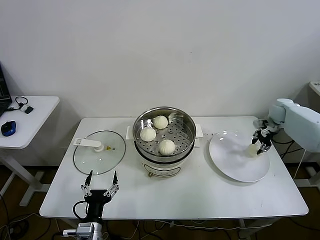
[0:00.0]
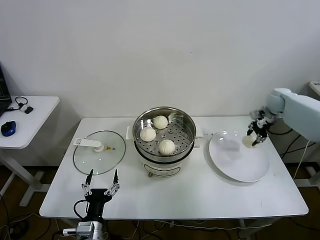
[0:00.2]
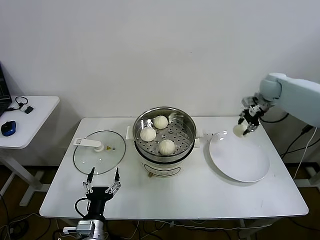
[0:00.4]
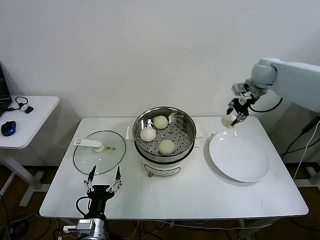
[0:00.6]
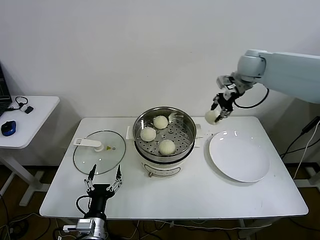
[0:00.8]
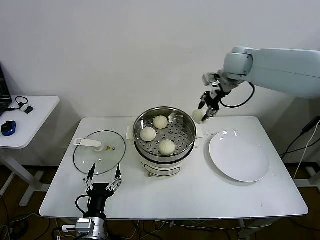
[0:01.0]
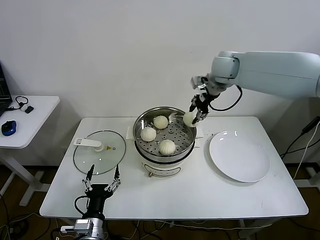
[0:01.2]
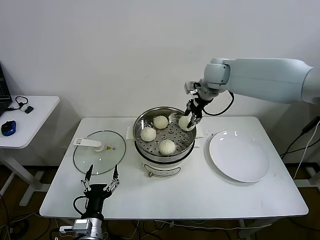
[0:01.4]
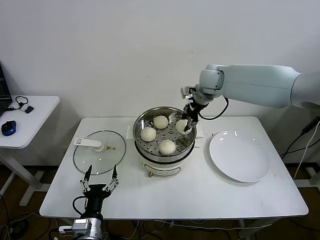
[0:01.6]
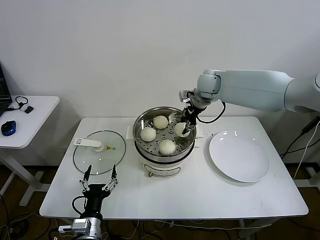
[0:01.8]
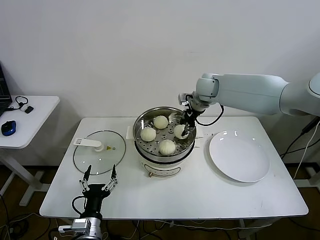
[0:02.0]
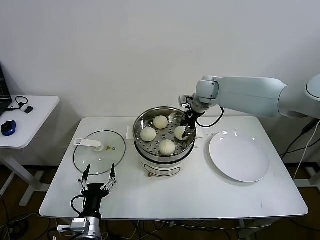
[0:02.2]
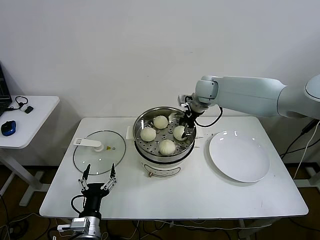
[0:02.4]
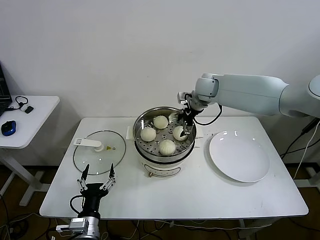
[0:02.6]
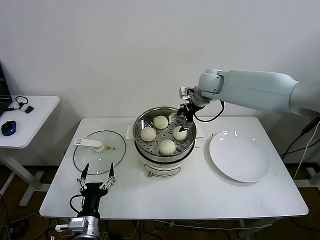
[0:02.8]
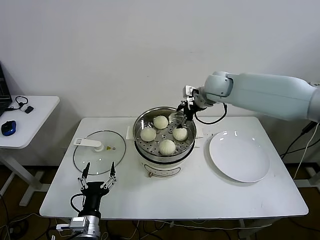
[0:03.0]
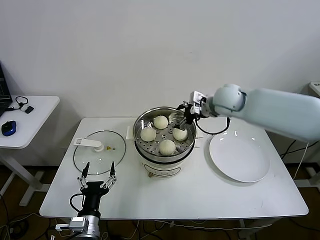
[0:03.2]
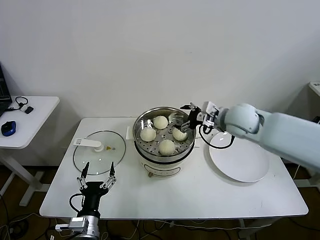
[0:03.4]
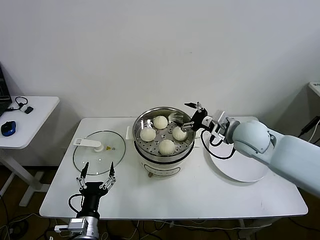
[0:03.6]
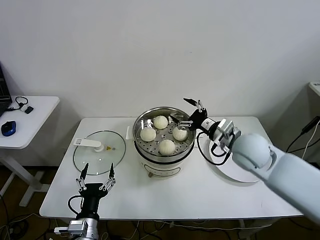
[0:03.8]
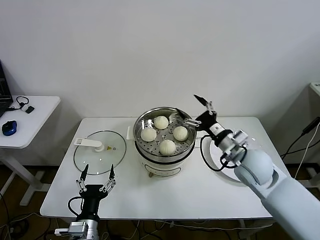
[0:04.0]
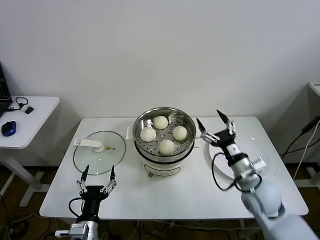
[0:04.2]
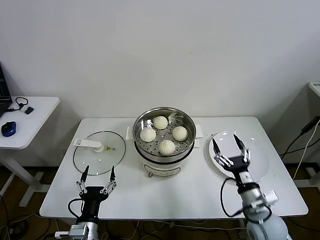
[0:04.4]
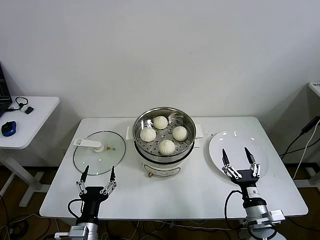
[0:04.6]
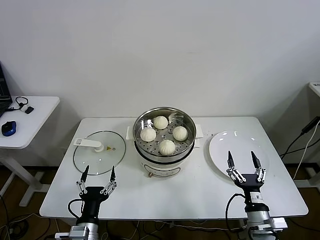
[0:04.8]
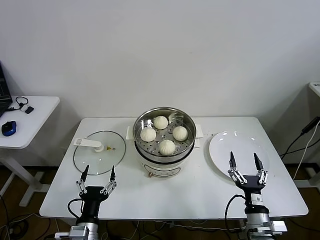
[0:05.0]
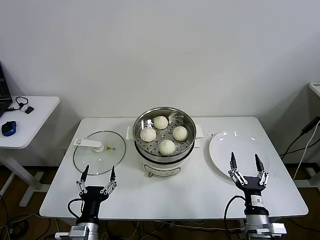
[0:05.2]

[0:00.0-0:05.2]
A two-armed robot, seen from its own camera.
Step, 0:00.0 to 0:03.0: Place the baozi on the steamer with right gripper.
0:00.0 to 0:01.8: The right gripper shifts roughly 35 cm to the left and upward.
0:01.8 to 0:03.4: The right gripper is displaced backward and to the right by roughly 15 cm, and opens its fingers.
0:03.4 to 0:05.2: The right gripper moves backward and downward, some 40 cm.

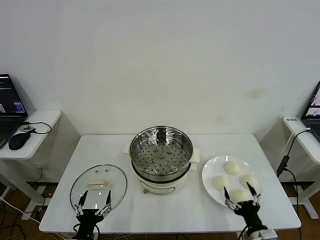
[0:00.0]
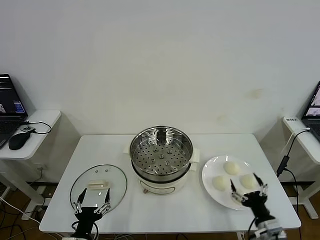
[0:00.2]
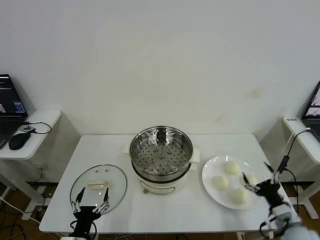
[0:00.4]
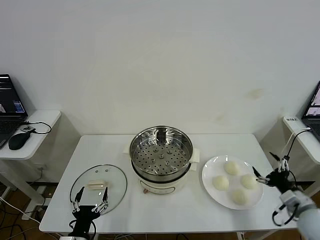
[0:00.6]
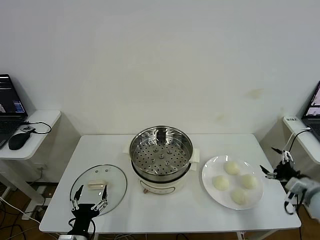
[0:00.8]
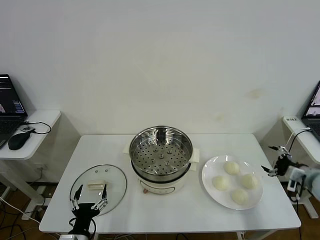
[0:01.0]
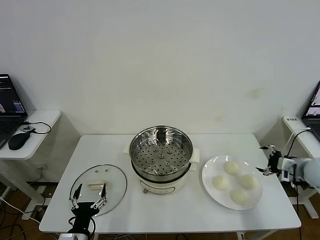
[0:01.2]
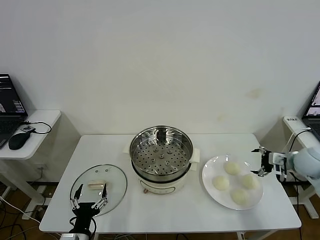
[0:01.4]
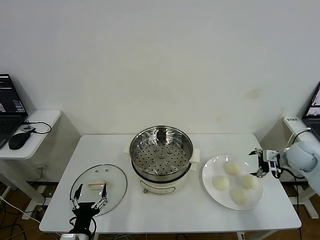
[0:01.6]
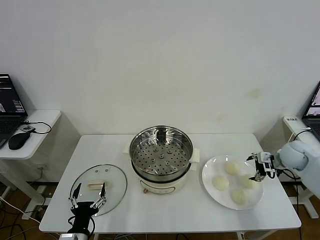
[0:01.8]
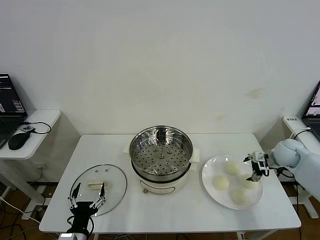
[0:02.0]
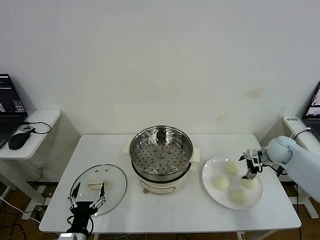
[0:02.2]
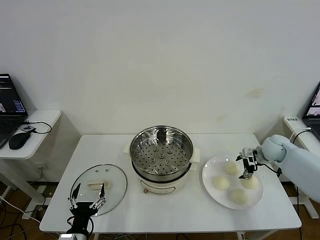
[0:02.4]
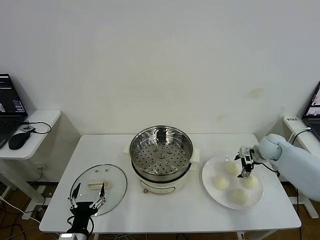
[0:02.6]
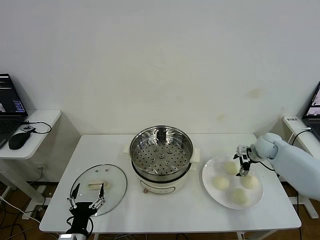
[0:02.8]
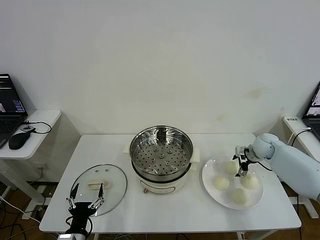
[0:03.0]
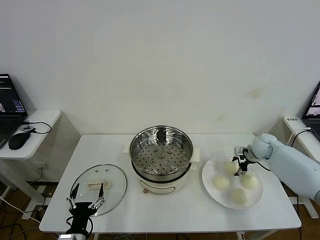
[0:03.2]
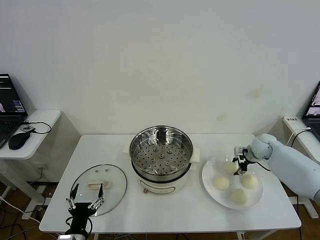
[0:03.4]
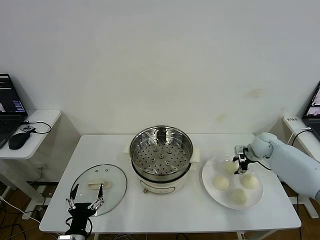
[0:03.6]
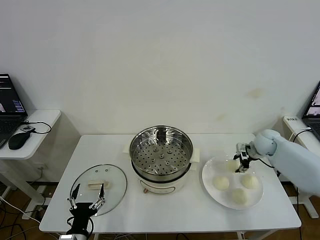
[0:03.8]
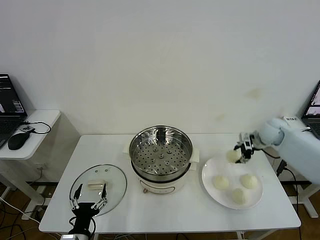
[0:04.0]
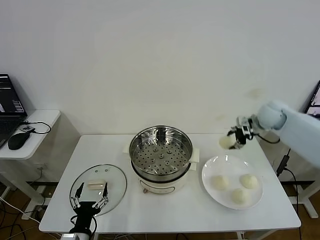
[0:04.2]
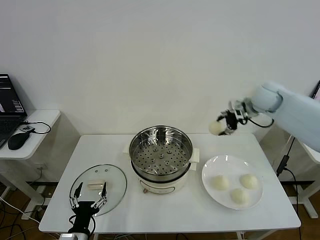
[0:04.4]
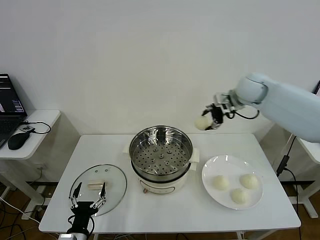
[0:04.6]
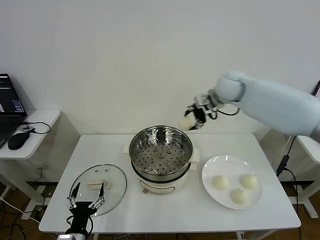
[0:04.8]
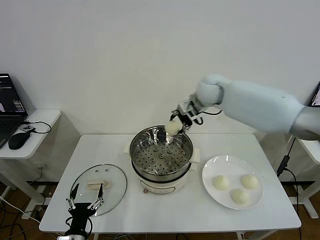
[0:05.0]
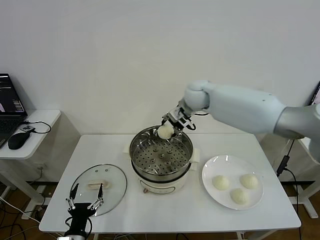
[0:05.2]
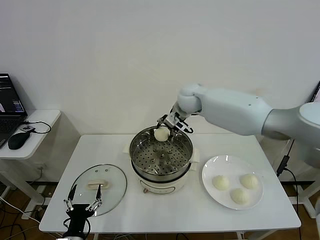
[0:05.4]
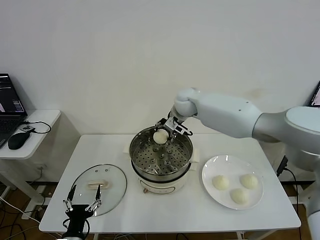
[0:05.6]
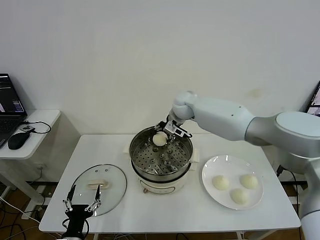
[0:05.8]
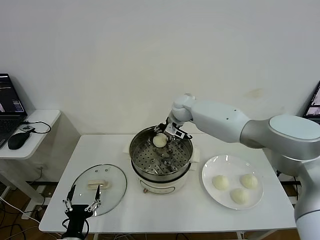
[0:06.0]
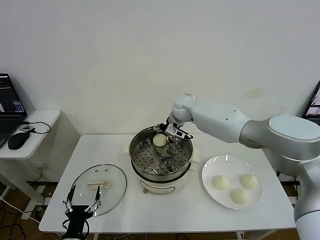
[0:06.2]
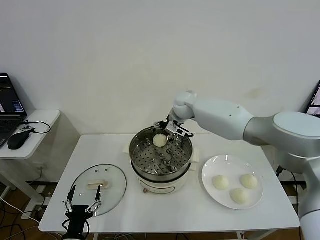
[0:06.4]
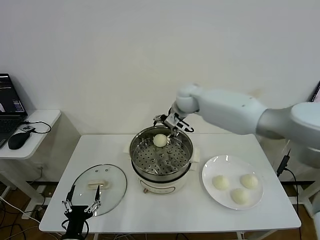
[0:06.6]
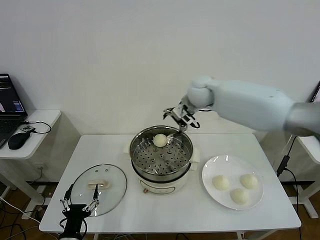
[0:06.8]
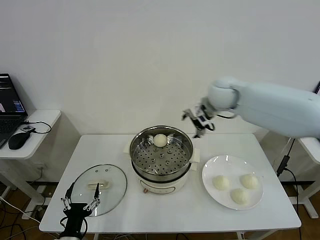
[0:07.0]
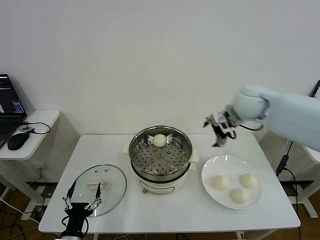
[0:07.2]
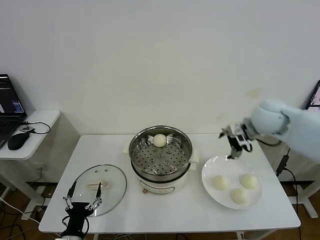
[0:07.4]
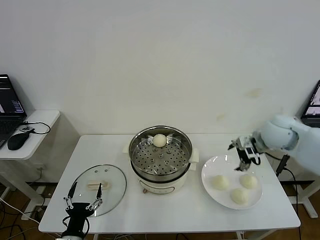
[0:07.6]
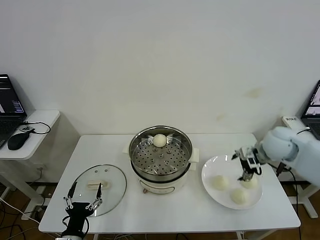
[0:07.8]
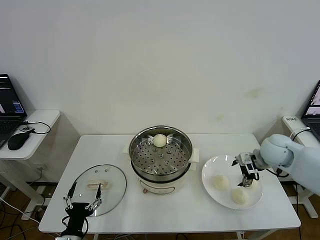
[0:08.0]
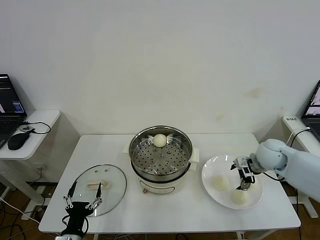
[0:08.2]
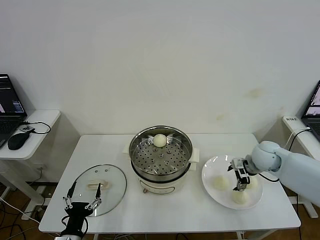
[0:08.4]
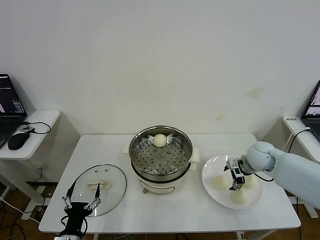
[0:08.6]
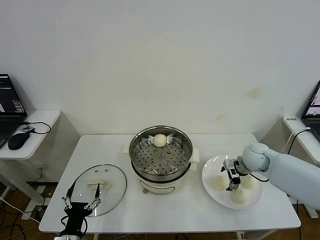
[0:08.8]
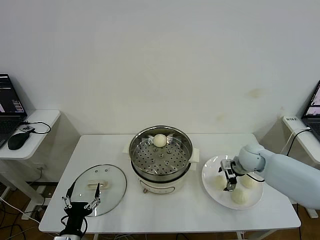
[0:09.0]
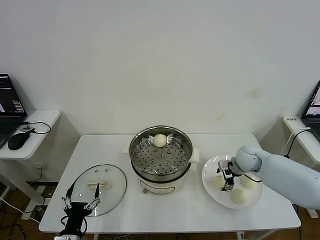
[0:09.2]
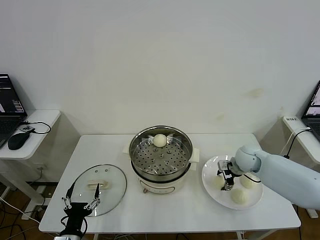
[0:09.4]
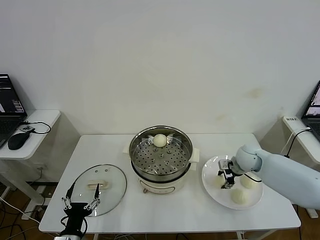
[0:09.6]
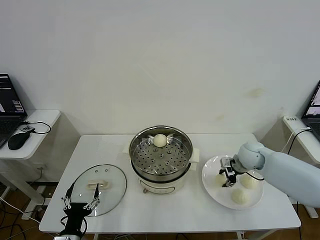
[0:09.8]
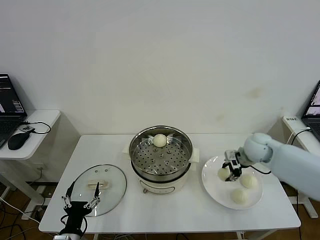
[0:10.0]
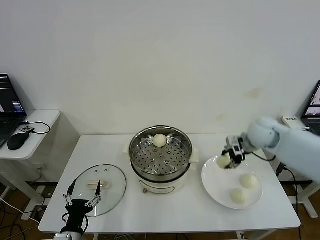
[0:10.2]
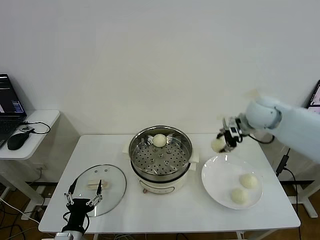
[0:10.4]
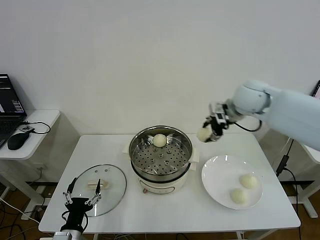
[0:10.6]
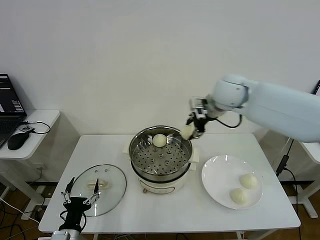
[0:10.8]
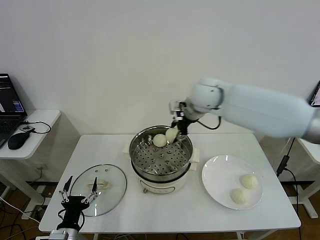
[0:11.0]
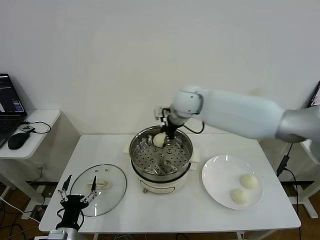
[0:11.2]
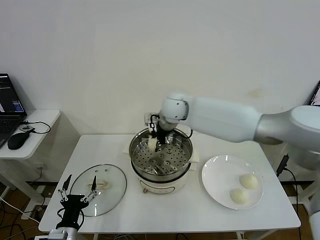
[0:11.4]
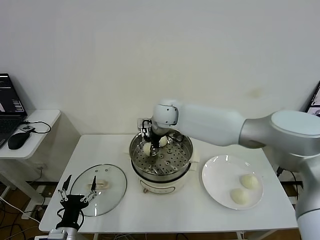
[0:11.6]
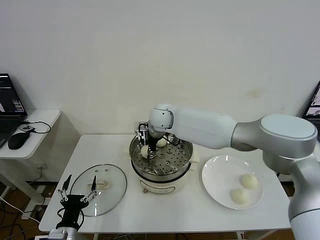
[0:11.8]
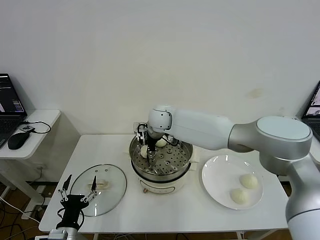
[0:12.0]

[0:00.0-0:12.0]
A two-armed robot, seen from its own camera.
Step, 0:00.0 to 0:03.2: Grasp the baozi in the plate with right gripper.
Step, 0:03.6 to 0:06.2: Place the baozi on the steamer with right gripper.
Step, 0:06.4 to 0:09.6: Grasp the baozi in the plate with right gripper.
0:01.6 to 0:03.0: The right gripper heads forward and to the left, covering some 10 cm.
0:03.0 to 0:04.4: The right gripper moves upward and to the left, roughly 25 cm, and closes up.
0:04.4 to 0:06.0: The right gripper travels to the left and downward by roughly 25 cm.
0:06.0 to 0:07.6: The right gripper goes some 30 cm to the right and backward, and opens.
0:07.6 to 0:09.0: The right gripper travels downward by roughly 15 cm.
0:09.0 to 0:10.4: The right gripper heads upward, covering roughly 20 cm, and closes its fingers.
0:10.4 to 0:12.0: The right gripper shifts roughly 30 cm to the left.

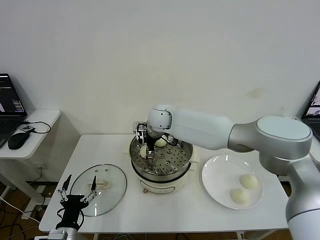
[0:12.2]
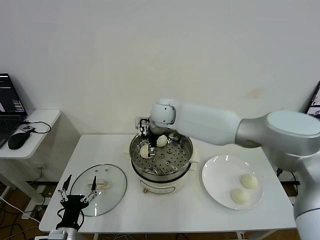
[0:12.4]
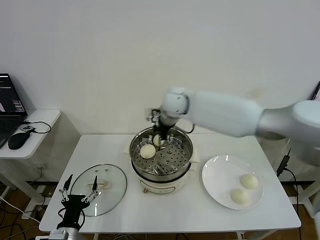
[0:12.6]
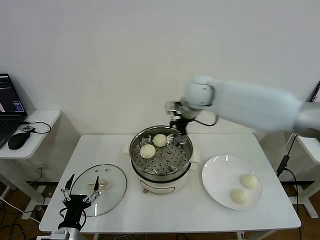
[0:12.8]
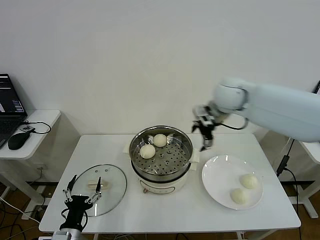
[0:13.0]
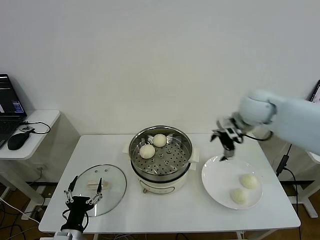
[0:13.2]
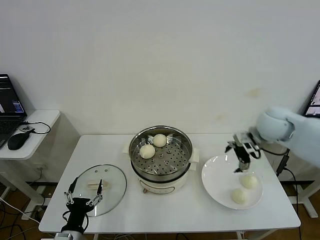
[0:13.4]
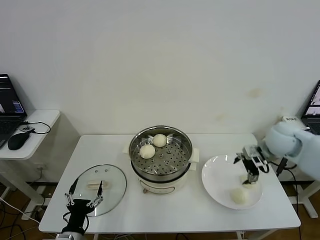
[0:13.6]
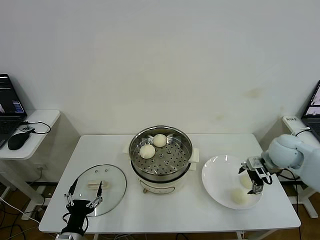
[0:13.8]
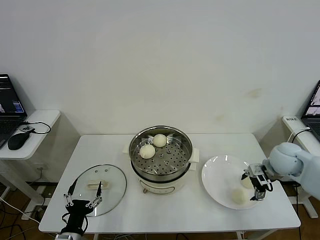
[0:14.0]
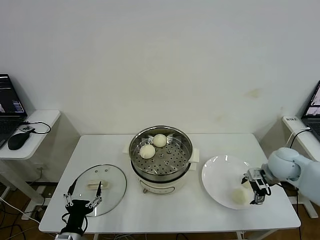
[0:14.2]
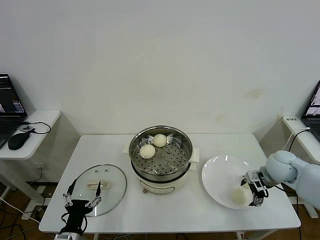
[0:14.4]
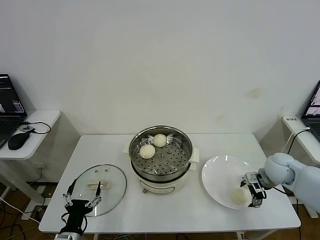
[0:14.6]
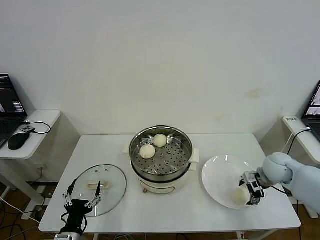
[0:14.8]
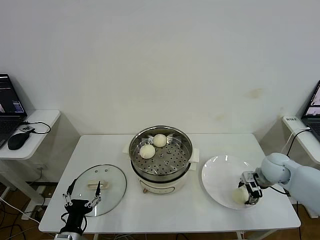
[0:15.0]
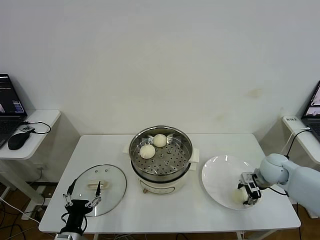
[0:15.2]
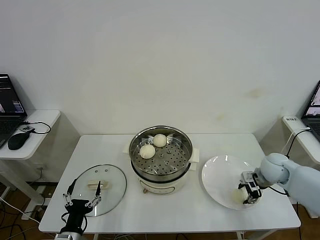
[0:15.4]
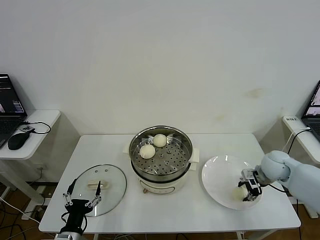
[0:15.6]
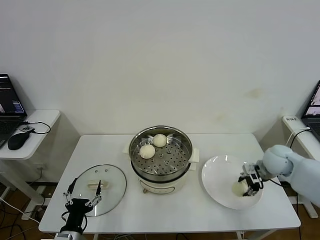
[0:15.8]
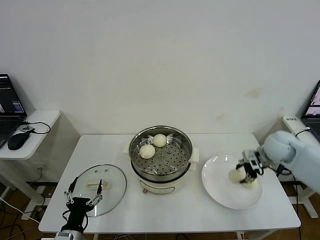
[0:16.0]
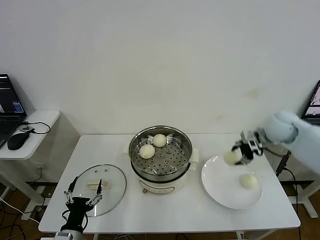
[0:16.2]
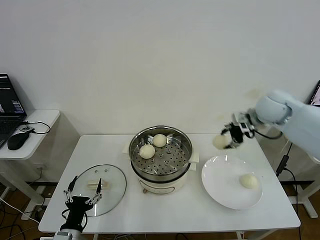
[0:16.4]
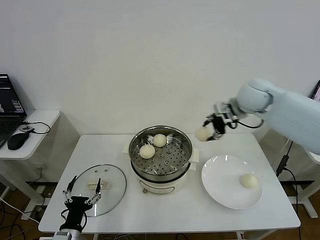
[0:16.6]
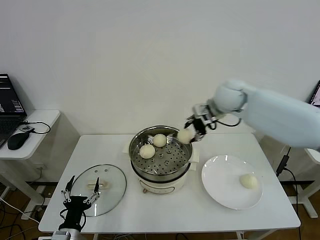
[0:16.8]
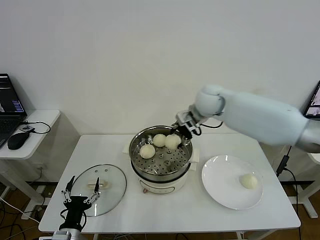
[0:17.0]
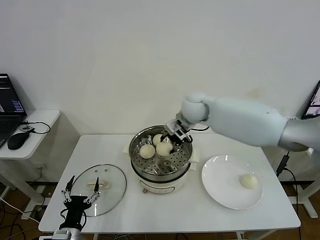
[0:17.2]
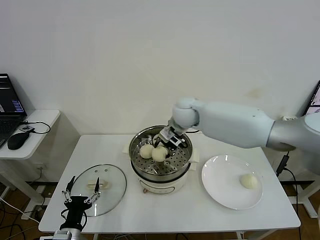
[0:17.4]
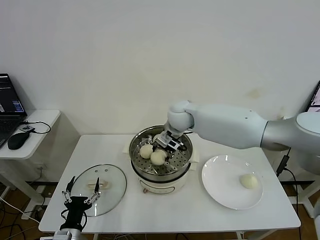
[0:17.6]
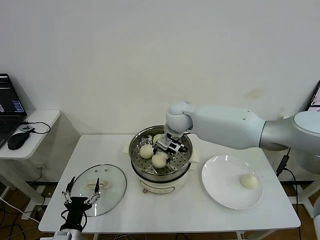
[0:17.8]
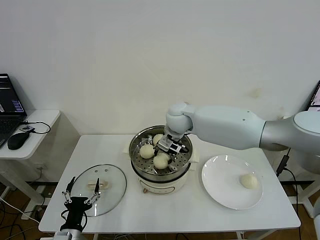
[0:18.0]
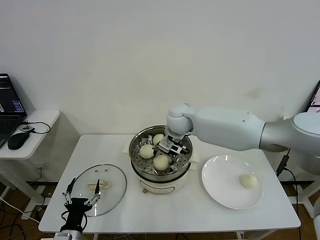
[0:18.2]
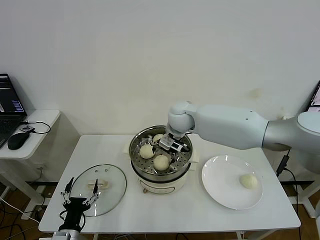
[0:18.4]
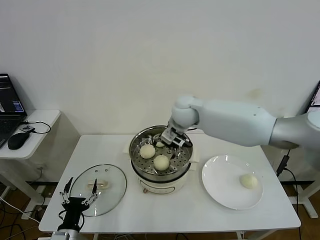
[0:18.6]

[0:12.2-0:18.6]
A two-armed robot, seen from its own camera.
Step, 0:12.6 to 0:15.2: Grasp the baozi in the plate with right gripper.
Step, 0:15.4 to 0:18.4: Place the baozi on the steamer with right gripper.
0:12.2 to 0:13.8: The right gripper moves to the right, roughly 40 cm.
0:13.8 to 0:15.4: The right gripper shifts roughly 10 cm downward, and closes its fingers.
0:15.4 to 0:17.0: The right gripper moves to the left, upward and forward, some 35 cm.
0:17.0 to 0:18.6: The right gripper shifts some 5 cm to the left, and opens up.
